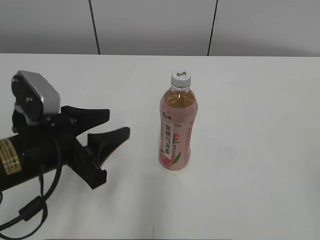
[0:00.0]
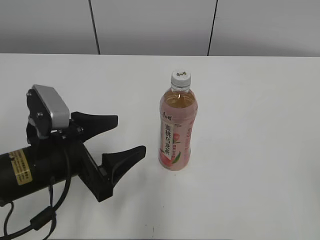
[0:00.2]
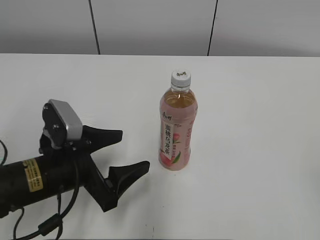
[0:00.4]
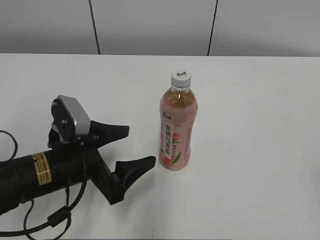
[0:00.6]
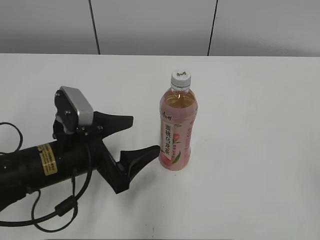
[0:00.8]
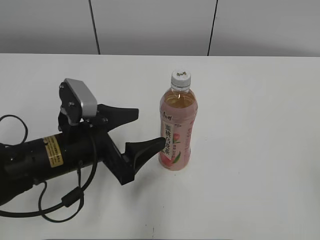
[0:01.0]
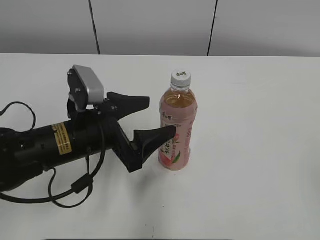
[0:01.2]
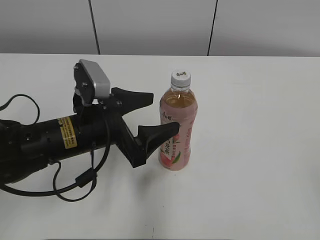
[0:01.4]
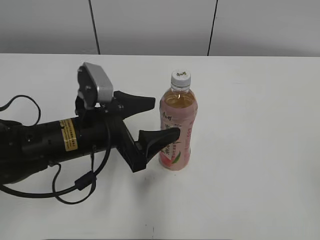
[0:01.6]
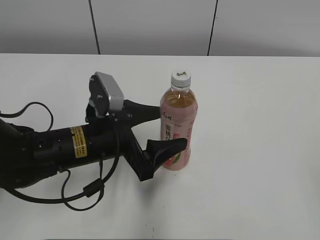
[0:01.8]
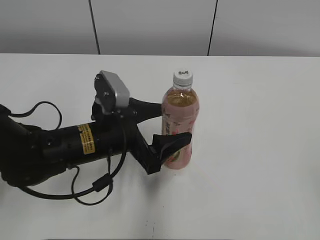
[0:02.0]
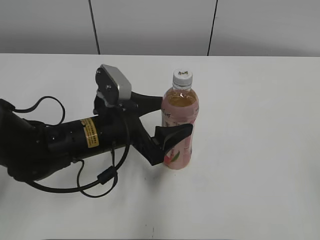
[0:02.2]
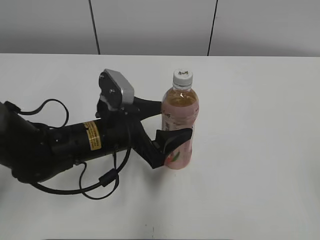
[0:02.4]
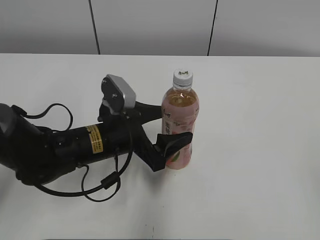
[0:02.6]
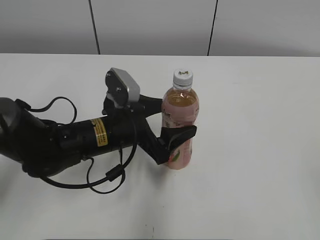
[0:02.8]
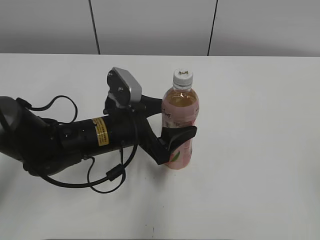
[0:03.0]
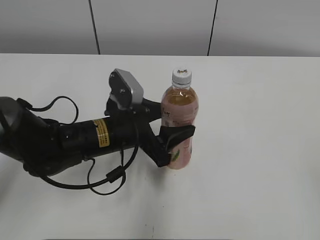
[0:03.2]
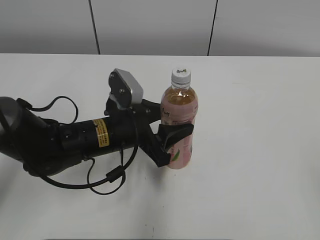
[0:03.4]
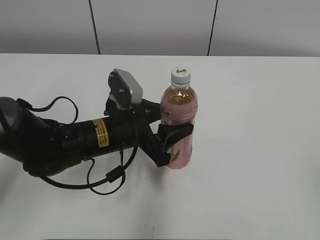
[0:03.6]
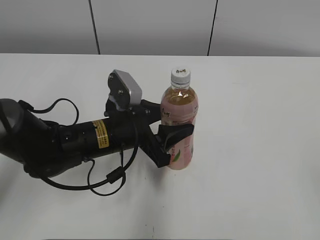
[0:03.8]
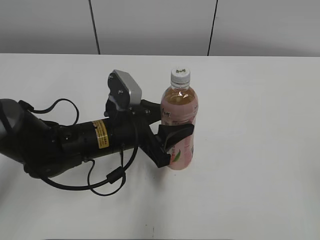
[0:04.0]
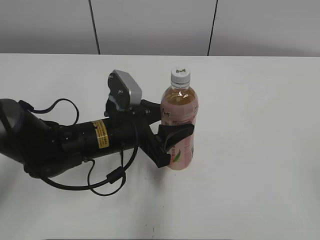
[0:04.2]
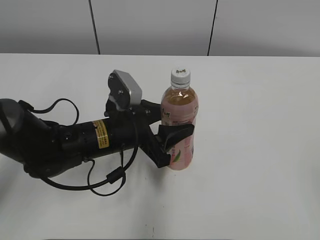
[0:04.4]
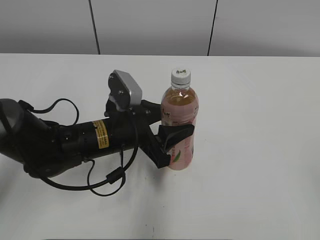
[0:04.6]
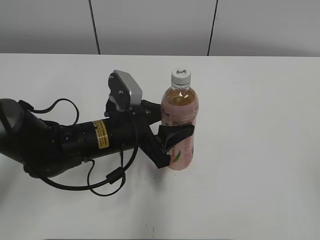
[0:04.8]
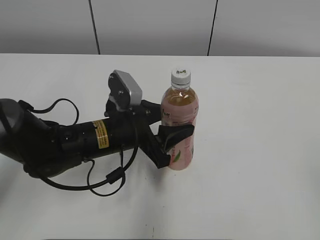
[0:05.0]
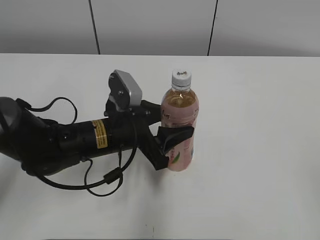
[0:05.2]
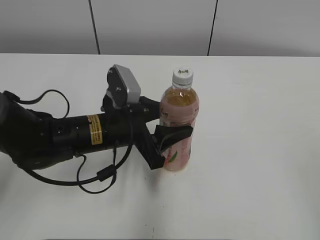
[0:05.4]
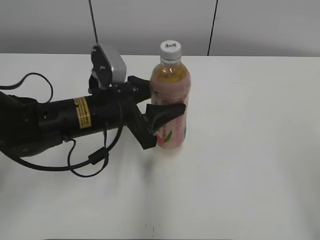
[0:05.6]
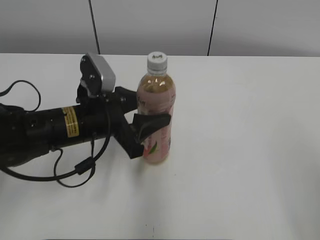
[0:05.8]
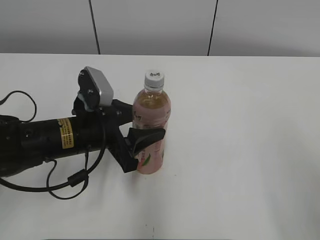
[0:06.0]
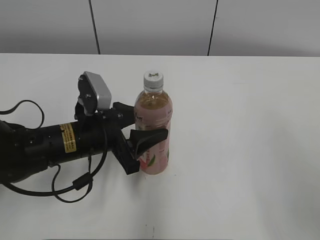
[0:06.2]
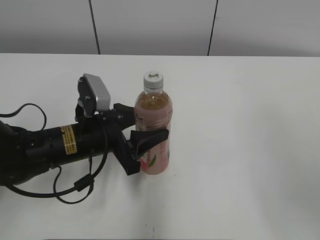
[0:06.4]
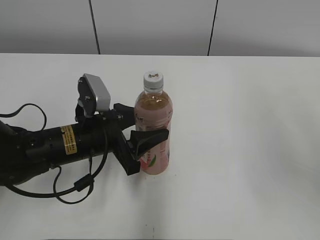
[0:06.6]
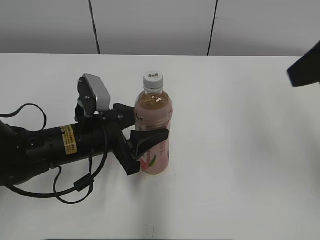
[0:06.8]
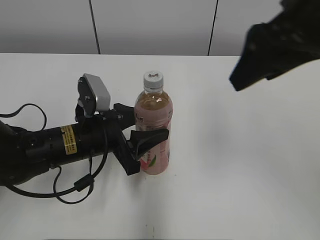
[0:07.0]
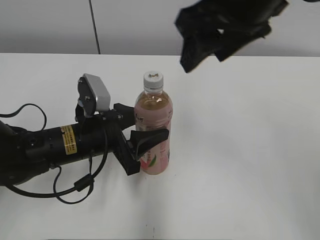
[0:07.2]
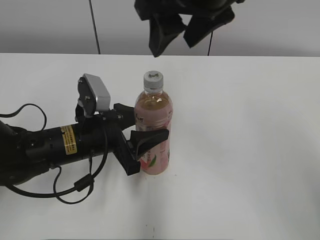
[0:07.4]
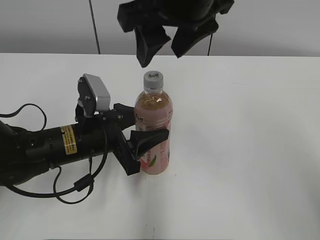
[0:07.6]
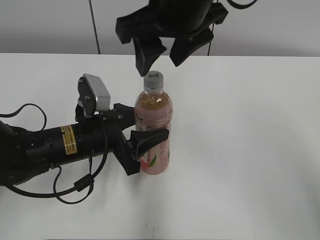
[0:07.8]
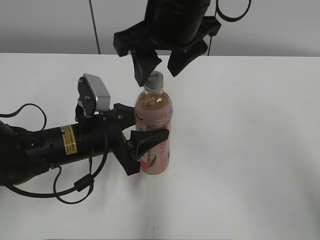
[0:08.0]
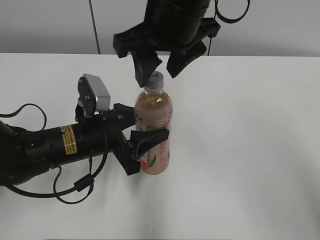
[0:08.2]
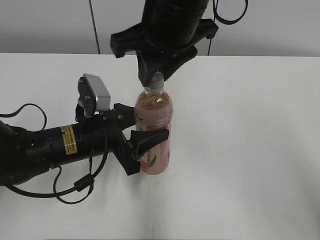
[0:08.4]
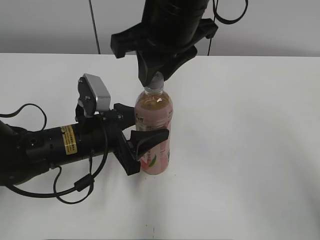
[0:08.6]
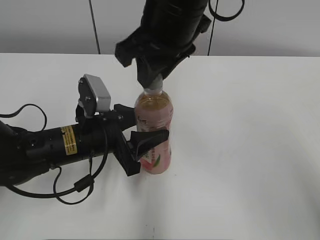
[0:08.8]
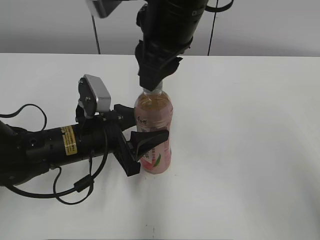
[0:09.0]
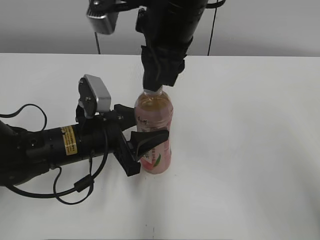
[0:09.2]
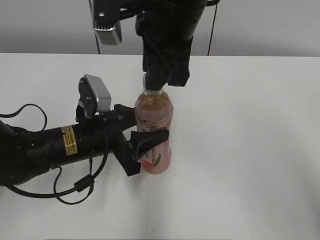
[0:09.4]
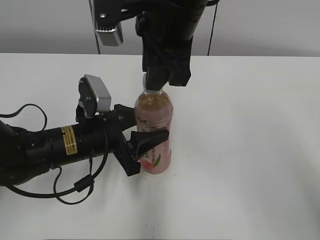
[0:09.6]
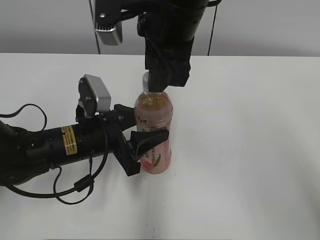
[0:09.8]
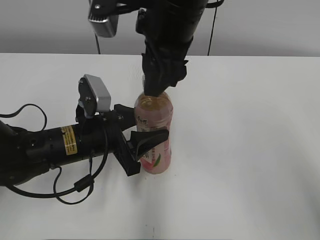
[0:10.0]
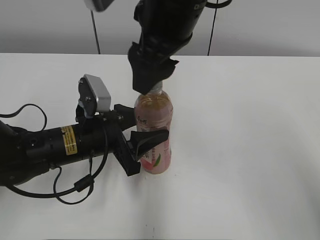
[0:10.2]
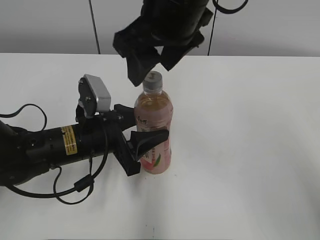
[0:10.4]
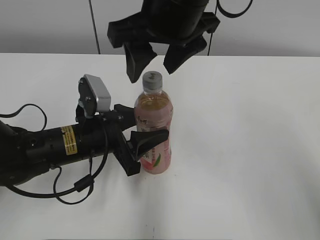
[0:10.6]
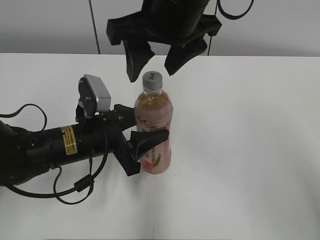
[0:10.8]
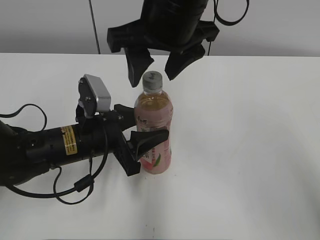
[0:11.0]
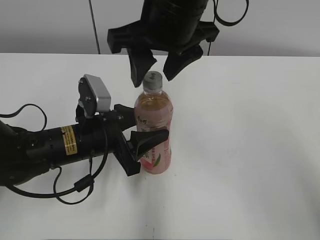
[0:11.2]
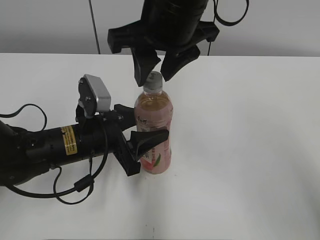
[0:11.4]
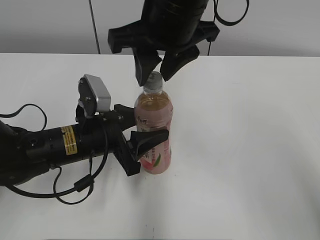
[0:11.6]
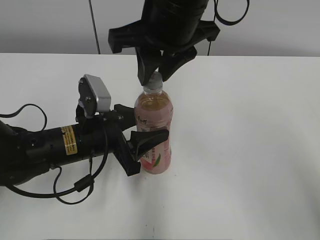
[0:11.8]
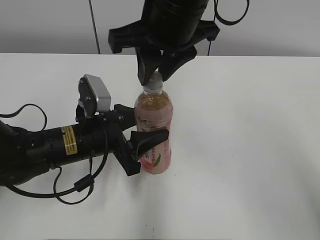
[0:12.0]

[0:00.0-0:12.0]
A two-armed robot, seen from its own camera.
Step, 0:00.0 to 0:05.0: Grab the Peach Oolong Tea with the left hand.
Step, 0:05.2 to 0:08.0: Move the Peach Oolong Tea from right to left.
0:00.0 to 0:01.6: The left gripper travels to the right by some 5 cm, and opens.
0:01.6 to 0:03.0: The grippers move only a little.
0:03.0 to 0:04.4: The left gripper closes up.
0:04.4 to 0:06.0: The left gripper changes place by about 5 cm. Meanwhile the right gripper is displaced forward by some 5 cm.
0:06.0 to 0:07.6: The right gripper shifts roughly 30 cm to the left and forward.
0:07.6 to 0:09.0: The right gripper closes its fingers.
0:09.0 to 0:10.4: The right gripper opens up.
0:10.4 to 0:12.0: The right gripper closes its fingers.

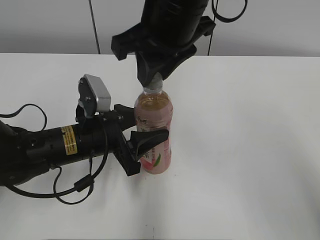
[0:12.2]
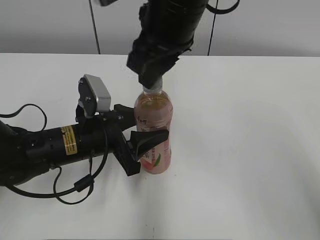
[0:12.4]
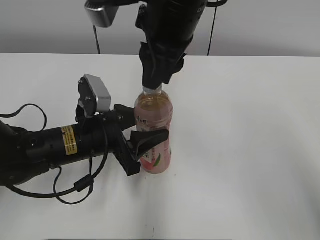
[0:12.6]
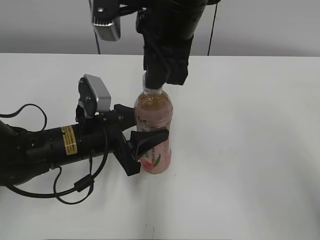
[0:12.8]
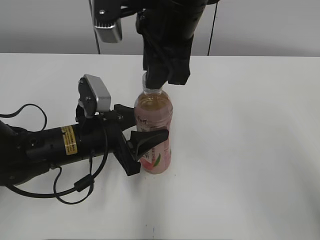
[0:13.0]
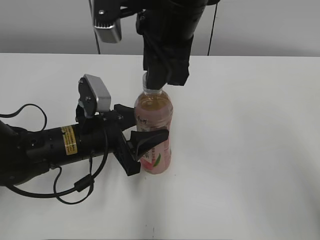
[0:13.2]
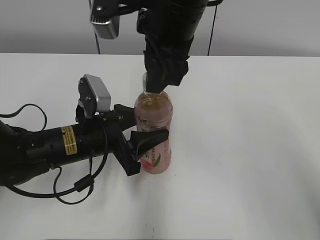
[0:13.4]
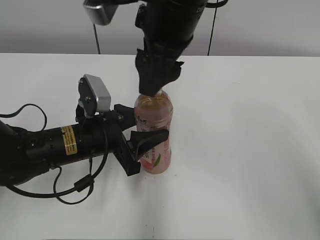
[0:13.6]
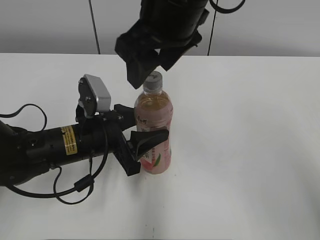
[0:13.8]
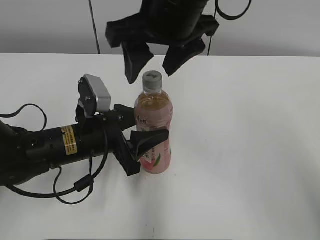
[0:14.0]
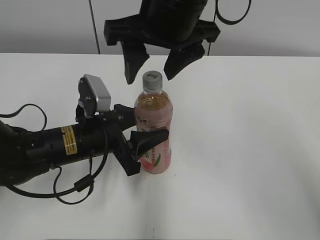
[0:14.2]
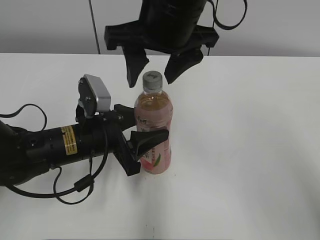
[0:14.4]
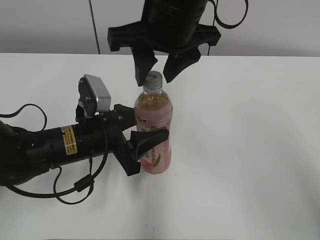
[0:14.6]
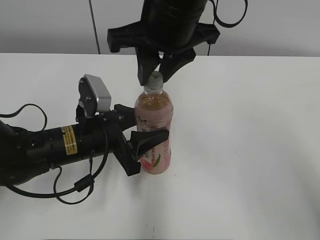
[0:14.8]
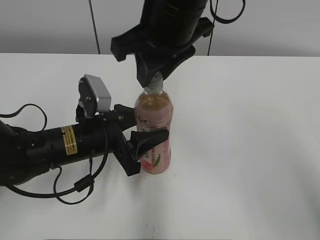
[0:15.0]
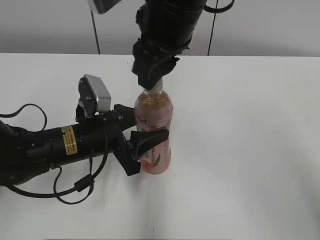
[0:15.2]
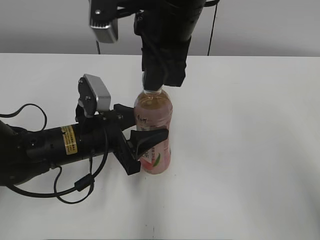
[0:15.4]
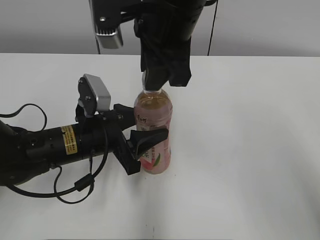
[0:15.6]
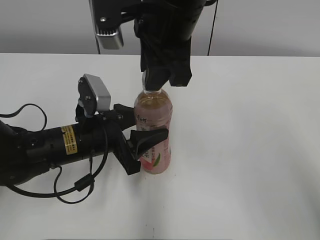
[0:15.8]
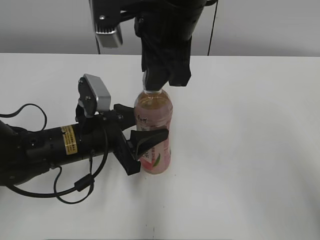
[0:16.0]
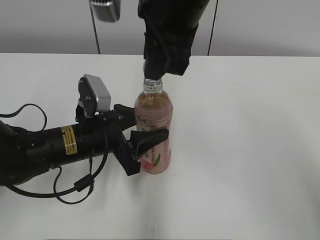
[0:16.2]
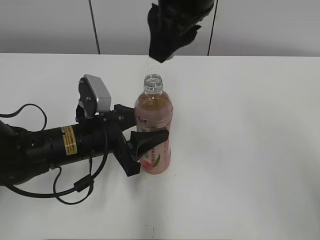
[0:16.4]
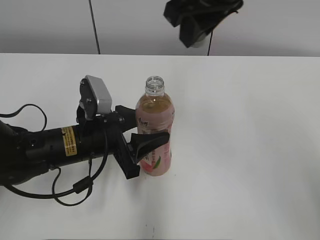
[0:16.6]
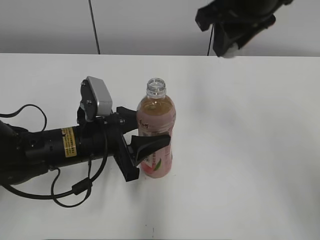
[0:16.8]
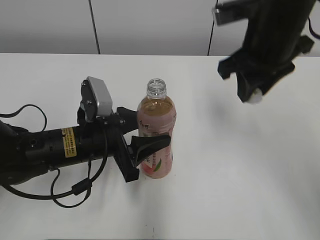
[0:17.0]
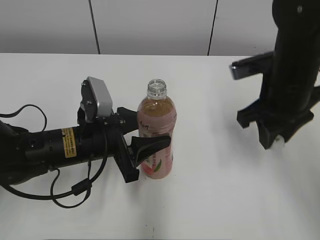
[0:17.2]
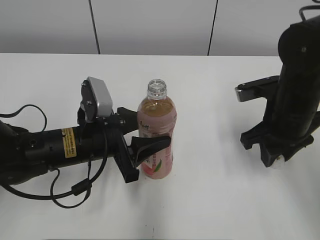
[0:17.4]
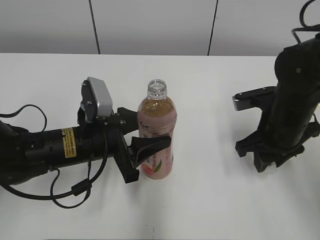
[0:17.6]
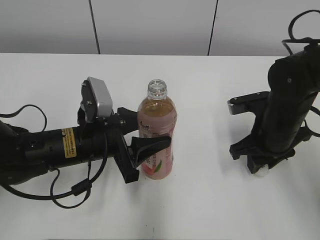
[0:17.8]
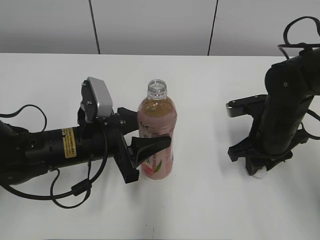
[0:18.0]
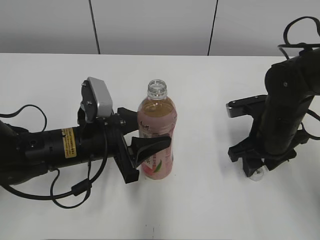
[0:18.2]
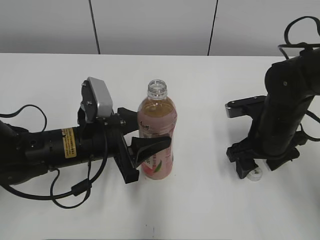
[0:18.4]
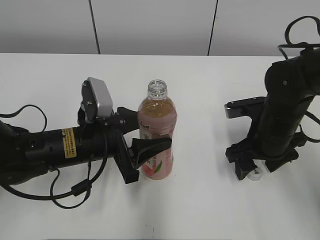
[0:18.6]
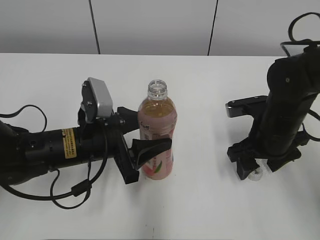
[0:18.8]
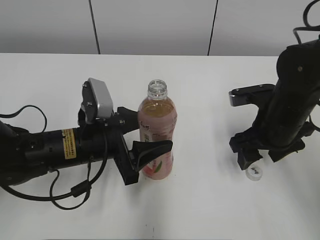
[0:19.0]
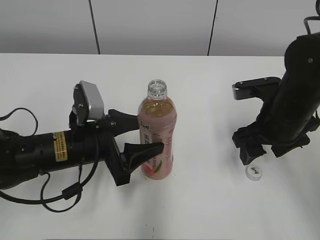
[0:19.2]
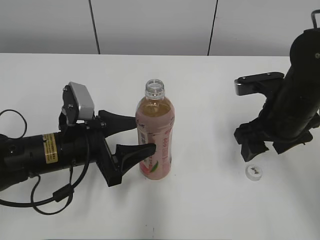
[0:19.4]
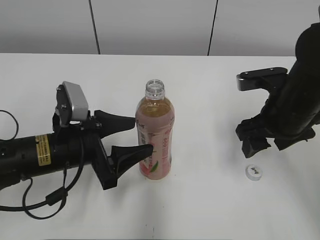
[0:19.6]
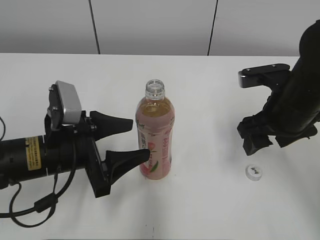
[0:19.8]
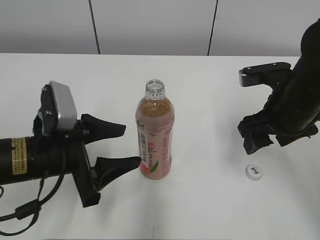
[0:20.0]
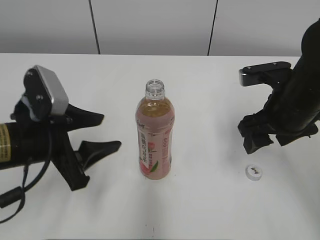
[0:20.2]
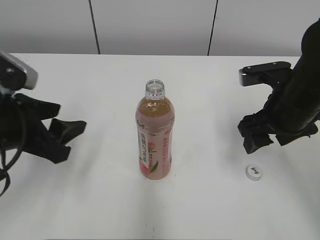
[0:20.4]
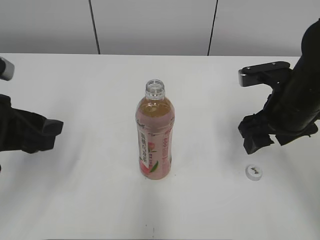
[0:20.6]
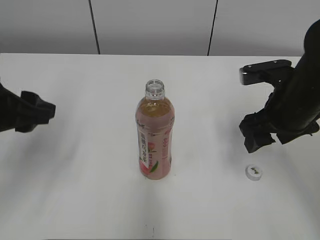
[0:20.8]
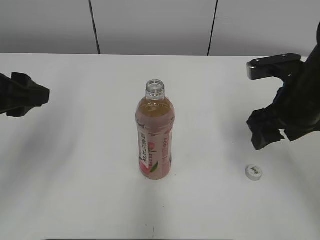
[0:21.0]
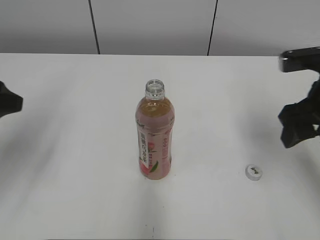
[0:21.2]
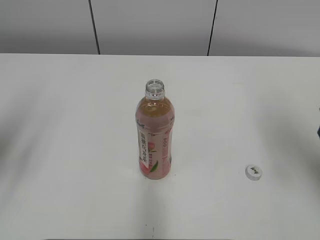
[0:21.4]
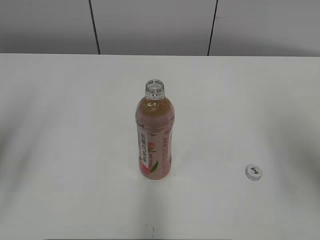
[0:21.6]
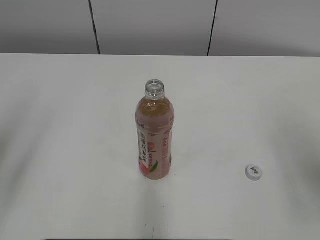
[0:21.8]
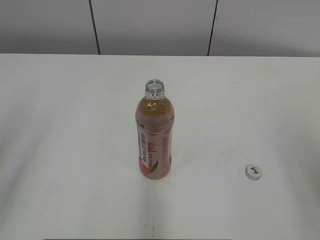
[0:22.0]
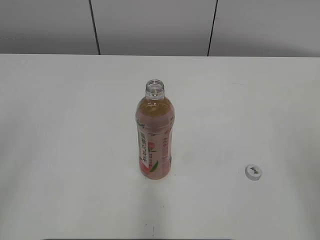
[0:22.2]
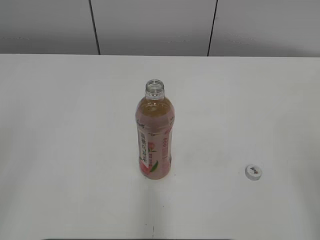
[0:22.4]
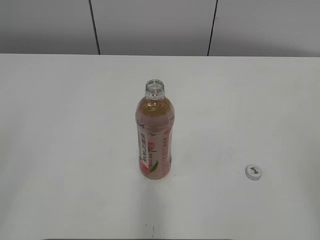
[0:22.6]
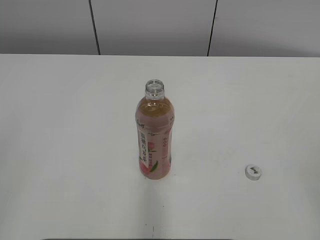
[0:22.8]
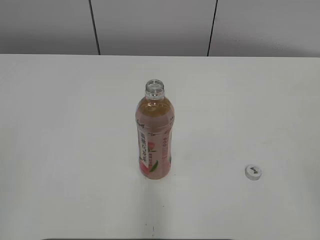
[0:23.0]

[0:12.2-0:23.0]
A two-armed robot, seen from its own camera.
Step, 0:16.2 to 0:18.2: Place the bottle cap on the right.
Step, 0:18.4 to 0:19.6: Place the Peach Oolong Tea with the left hand.
0:12.2 to 0:13.8: The right gripper opens its fingers.
0:13.8 to 0:15.2: The right gripper closes up.
0:15.2 to 0:16.8: The right gripper goes roughly 10 cm to the right.
0:16.8 to 0:18.4: The right gripper heads downward, covering some 20 cm, and opens its fingers.
0:18.4 to 0:20.0: The right gripper shifts roughly 5 cm upward; the left gripper moves some 5 cm.
0:20.0 to 0:21.4: The left gripper goes some 20 cm to the left and upward; the right gripper travels upward and to the right by approximately 10 cm.
0:21.4 to 0:23.0: The grippers both shift backward by about 20 cm.
